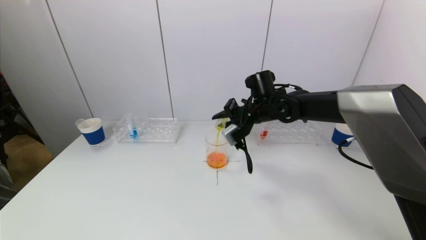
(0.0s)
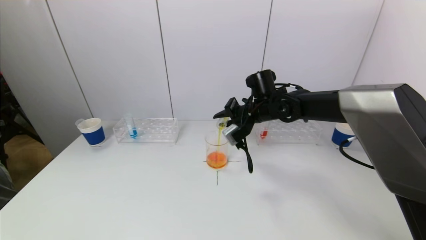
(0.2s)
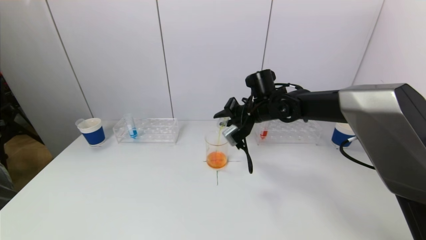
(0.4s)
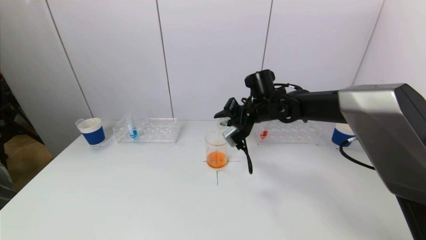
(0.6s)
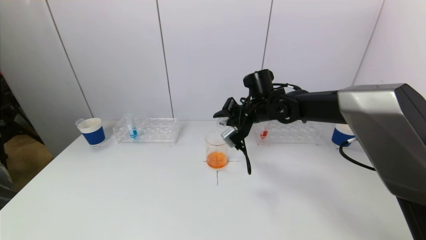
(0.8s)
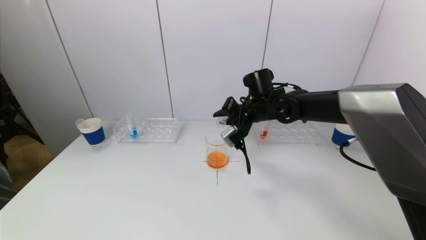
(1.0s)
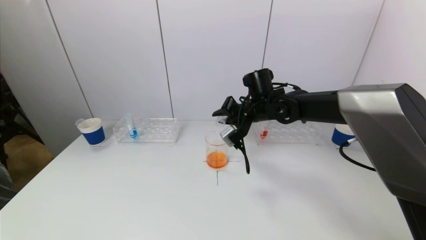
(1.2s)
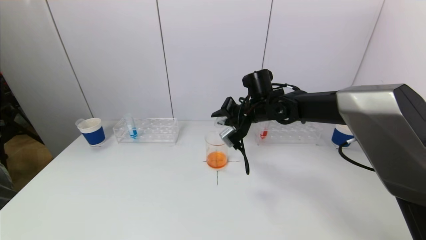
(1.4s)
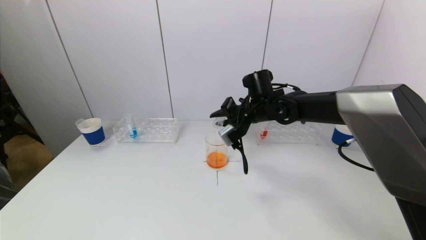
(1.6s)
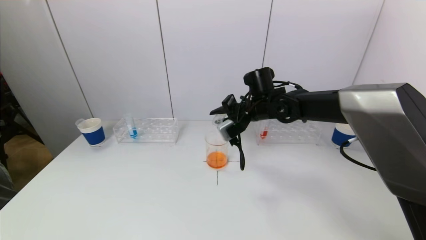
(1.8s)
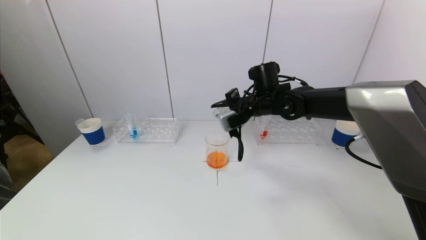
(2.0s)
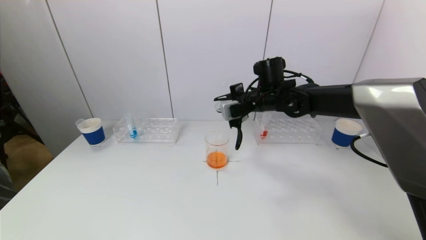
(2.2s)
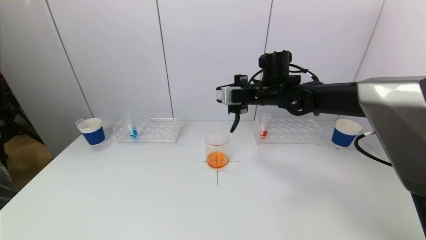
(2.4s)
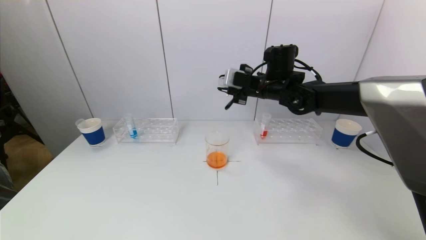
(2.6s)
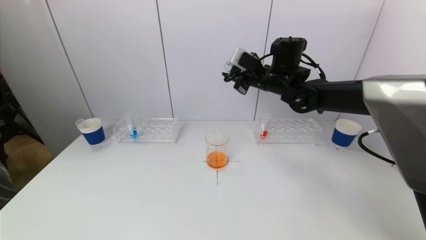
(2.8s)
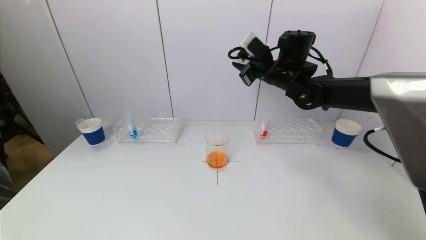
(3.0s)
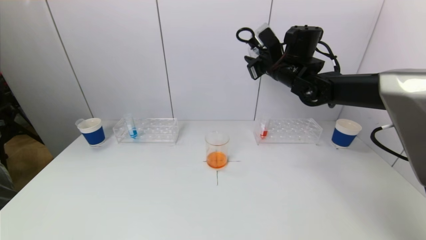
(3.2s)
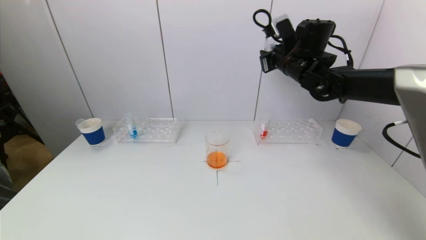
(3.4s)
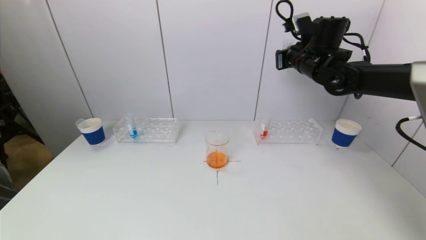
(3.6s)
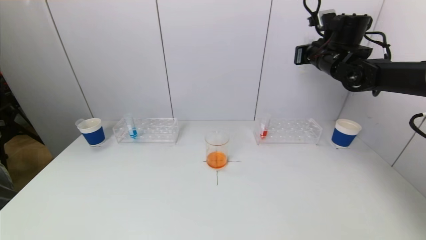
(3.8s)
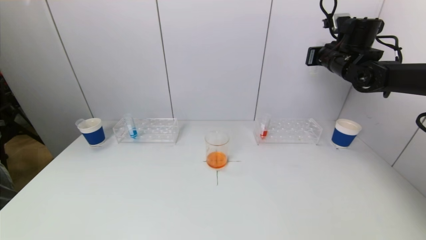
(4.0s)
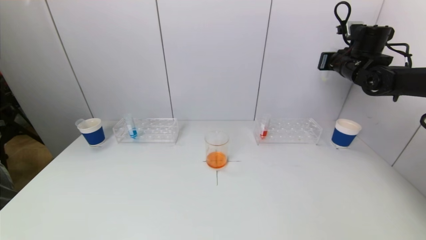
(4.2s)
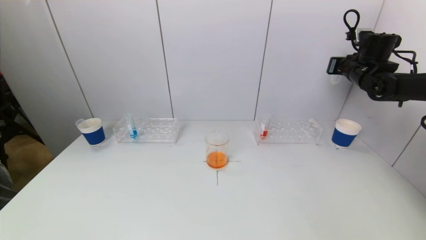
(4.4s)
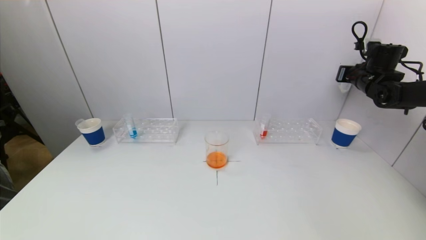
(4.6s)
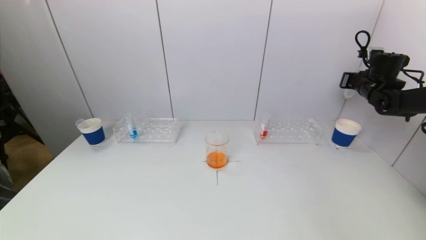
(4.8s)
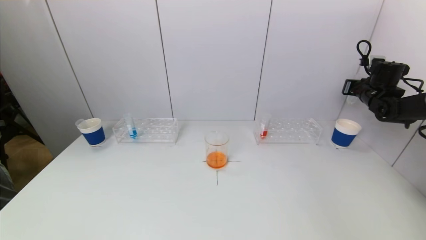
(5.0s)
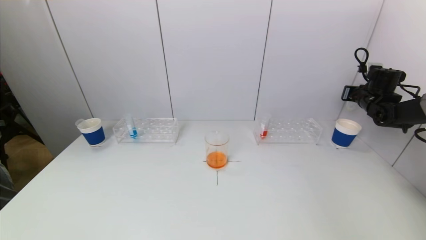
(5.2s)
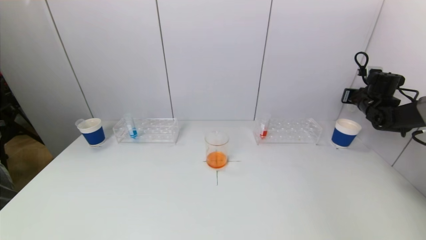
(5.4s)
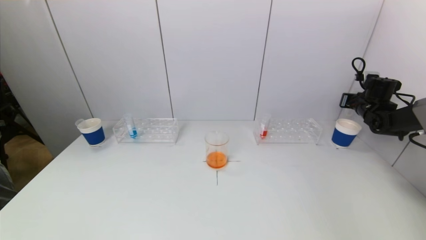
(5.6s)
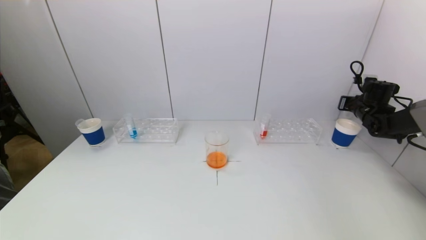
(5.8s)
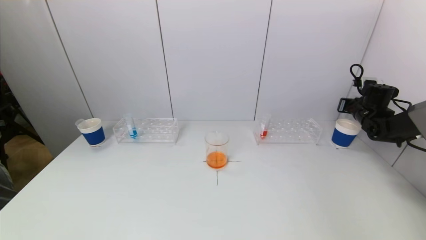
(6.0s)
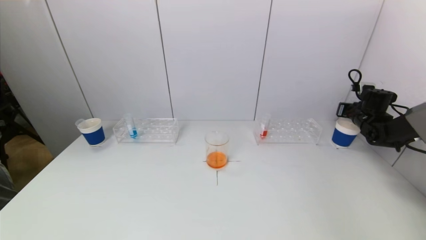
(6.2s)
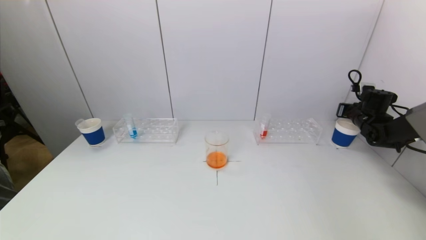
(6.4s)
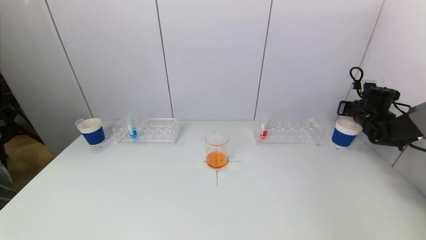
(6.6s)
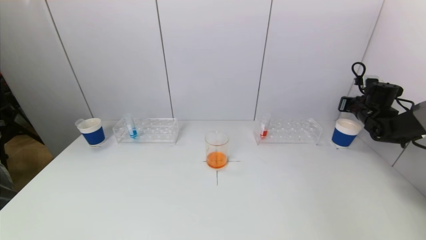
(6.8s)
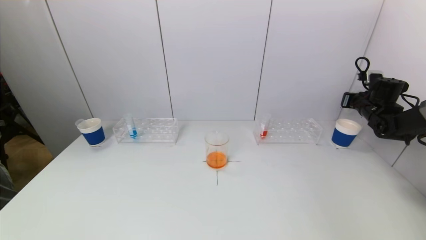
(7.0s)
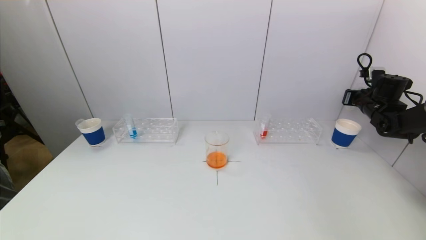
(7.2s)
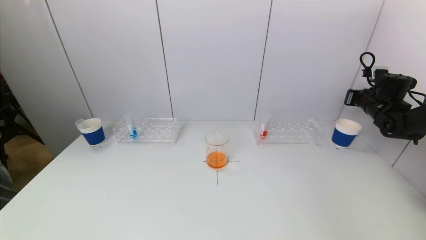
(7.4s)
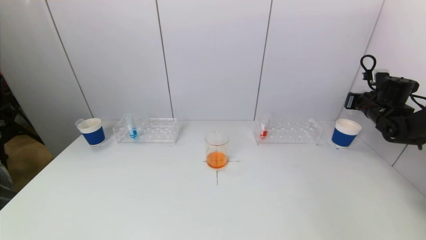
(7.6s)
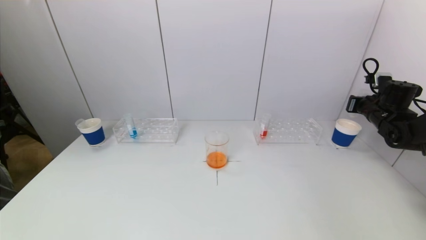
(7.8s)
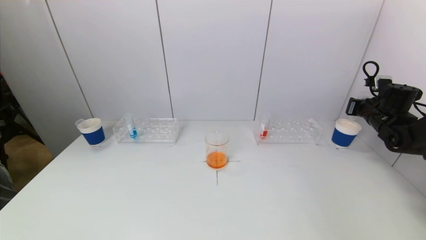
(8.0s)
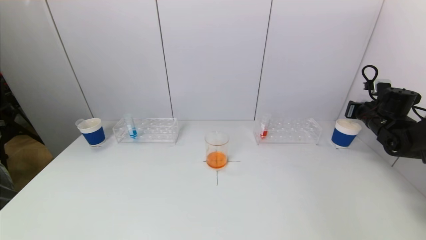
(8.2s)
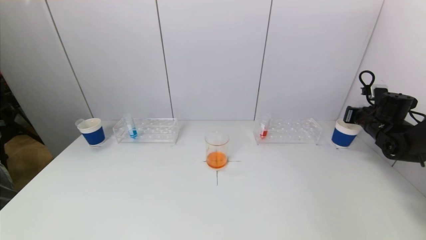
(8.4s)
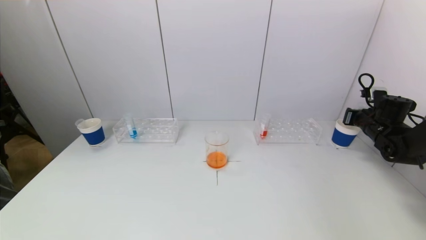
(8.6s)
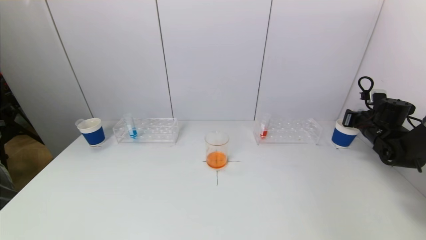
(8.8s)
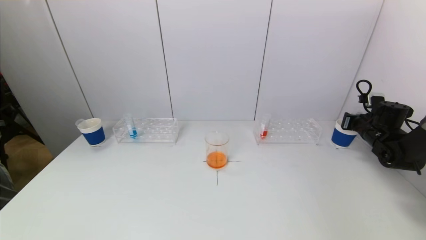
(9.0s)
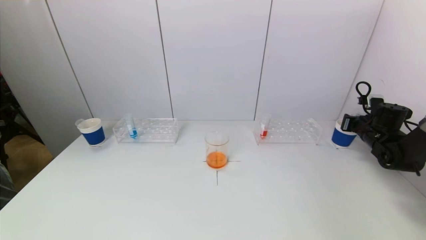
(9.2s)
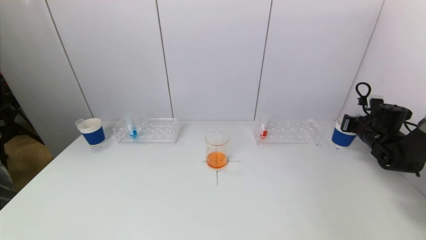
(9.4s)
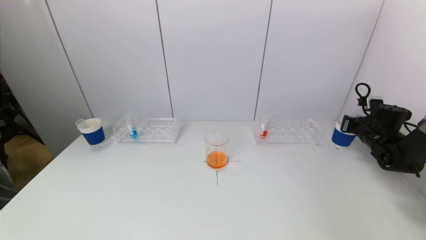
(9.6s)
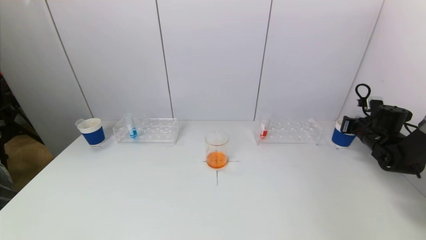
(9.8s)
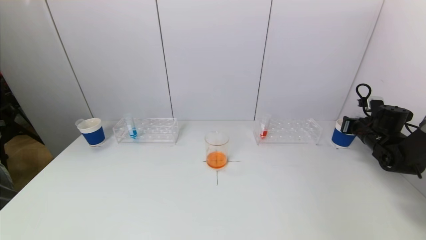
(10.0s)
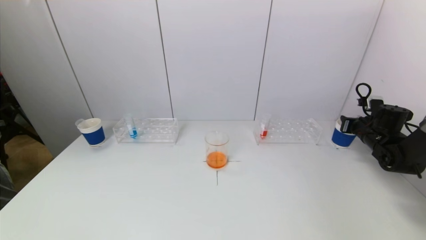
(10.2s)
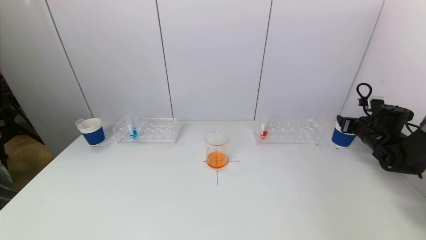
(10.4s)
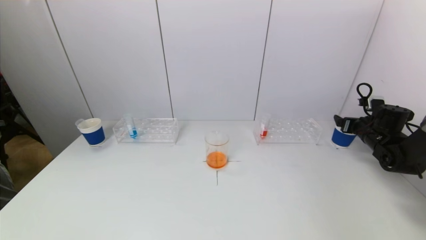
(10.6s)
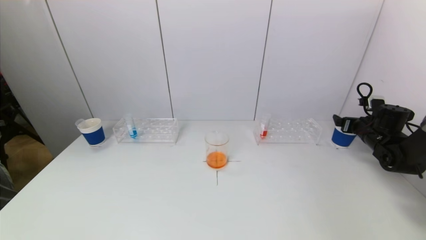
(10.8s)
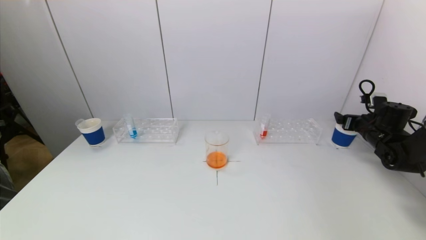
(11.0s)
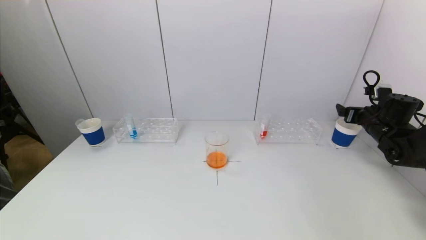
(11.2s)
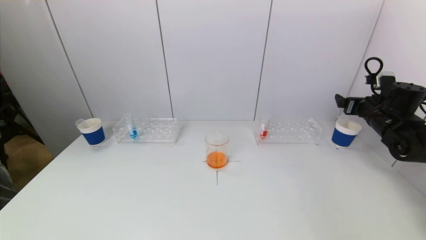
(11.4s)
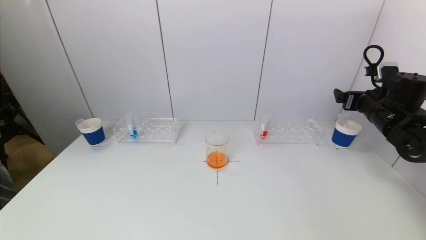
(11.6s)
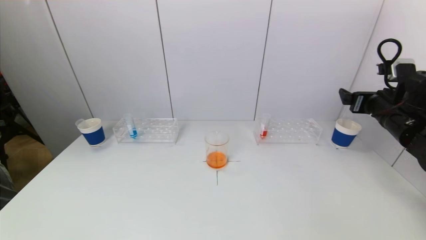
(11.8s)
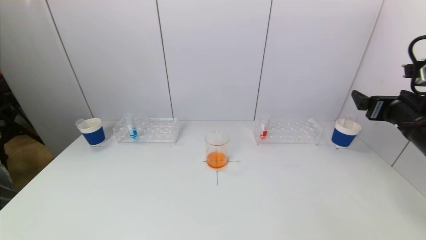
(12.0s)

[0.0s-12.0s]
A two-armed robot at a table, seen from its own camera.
Task of the whole recording: pick up a test tube with pigment on left test tube rack and a test tube with pigment on right test tube rack by grippers and pour them into the beaker.
Step, 1.6s to 10.4s: Place the test tube into the paper cup with the right gripper.
0.0s to 1.6s: The grippers stay close to where they were, moving slightly.
1.6s to 3.0s: The right gripper is displaced upward by approximately 10 cm.
3.0s to 4.4s: The right gripper travels to the right by about 25 cm.
4.4s to 6.0s: The right gripper goes roughly 15 cm downward and to the right.
6.0s to 7.6s: The right gripper moves about 5 cm.
7.6s to 9.0s: The right gripper travels downward by approximately 5 cm.
9.0s to 10.4s: The right gripper opens.
10.4s to 12.0s: The right gripper shifts approximately 20 cm backward, upward and to the left.

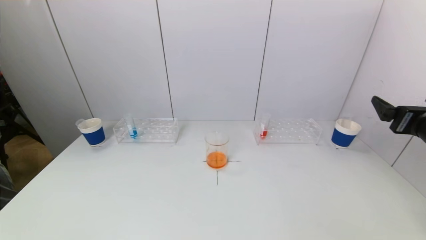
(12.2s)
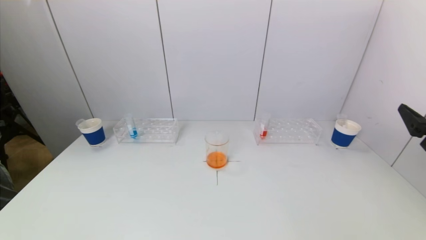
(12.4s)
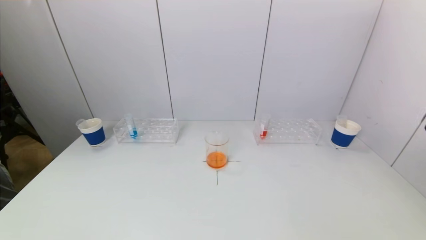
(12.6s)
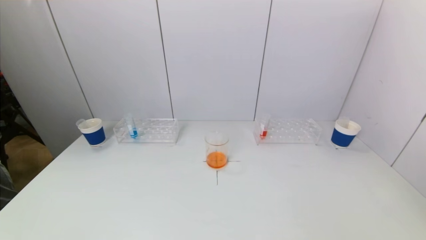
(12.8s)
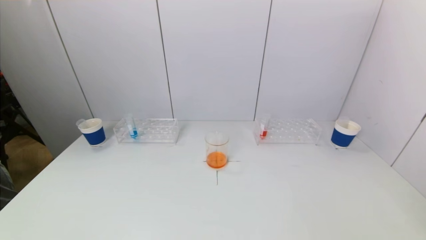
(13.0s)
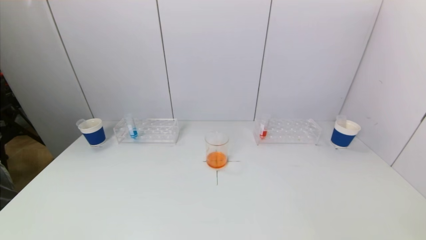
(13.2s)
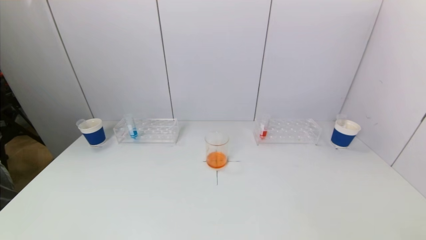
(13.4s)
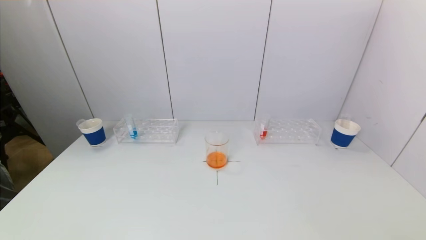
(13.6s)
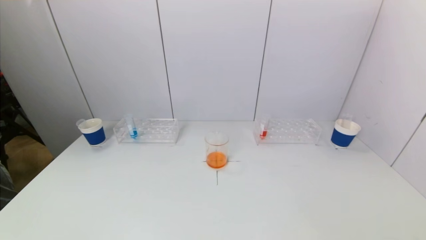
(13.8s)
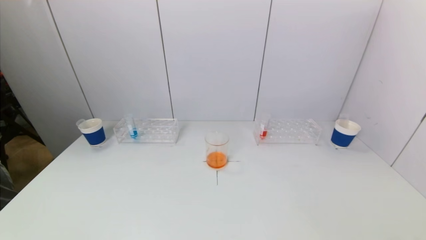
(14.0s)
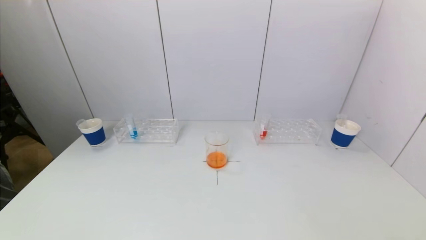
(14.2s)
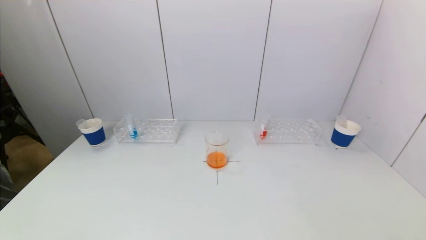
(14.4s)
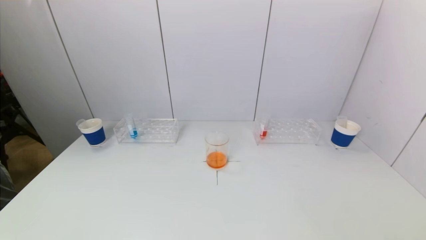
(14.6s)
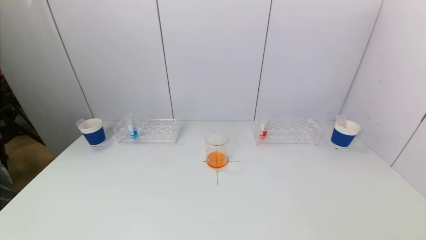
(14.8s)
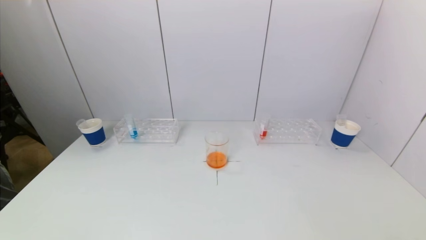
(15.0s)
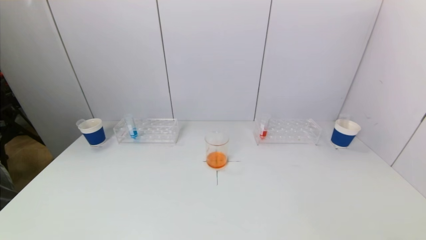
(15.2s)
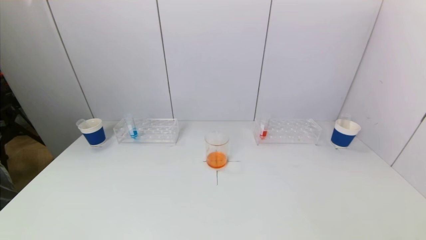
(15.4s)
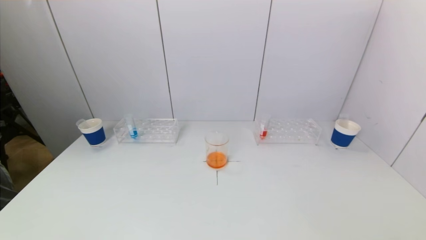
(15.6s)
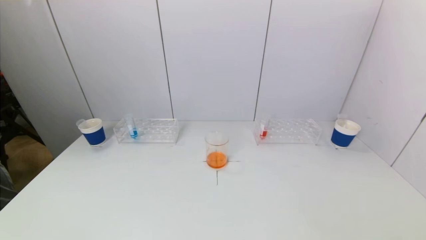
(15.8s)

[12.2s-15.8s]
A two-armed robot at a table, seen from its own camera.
Task of the whole recording: pick up a test tube with pigment on left test tube rack and a test tube with pigment on right test tube rack by grippers and pour them into the beaker.
12.2s to 14.0s: The right gripper moves backward and downward, roughly 25 cm.
14.0s to 15.8s: Neither gripper changes place.

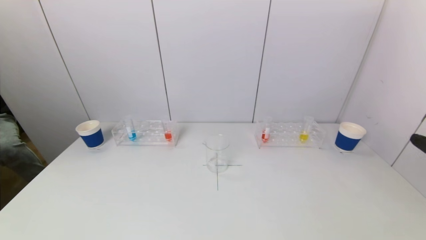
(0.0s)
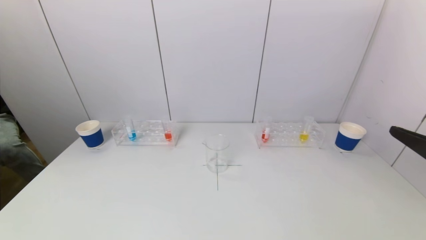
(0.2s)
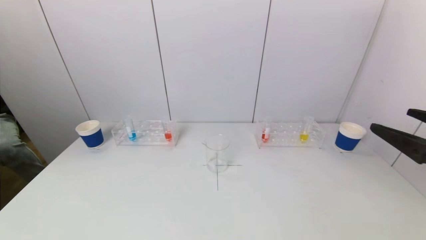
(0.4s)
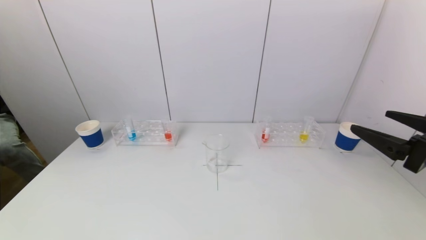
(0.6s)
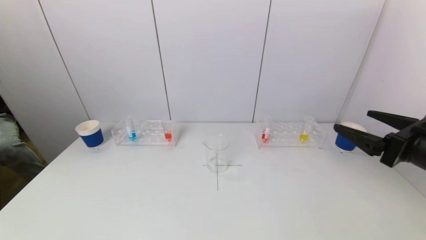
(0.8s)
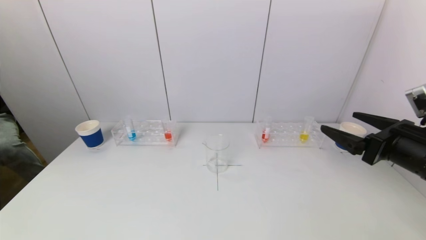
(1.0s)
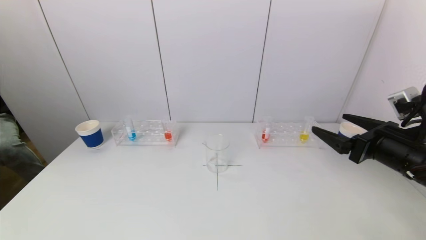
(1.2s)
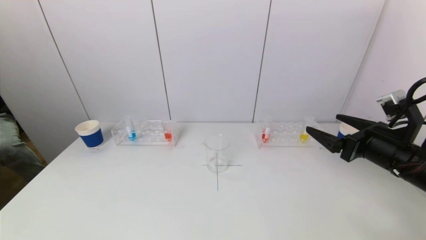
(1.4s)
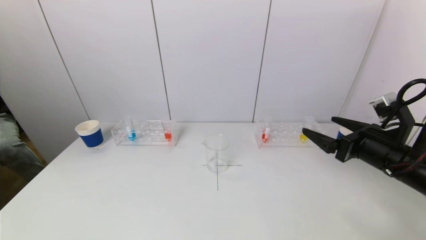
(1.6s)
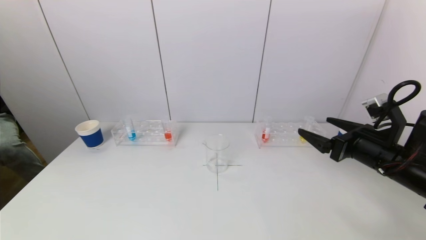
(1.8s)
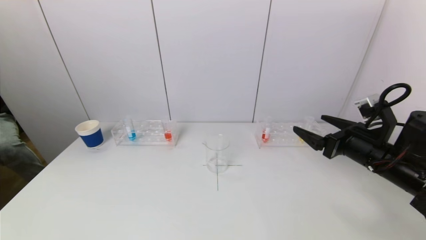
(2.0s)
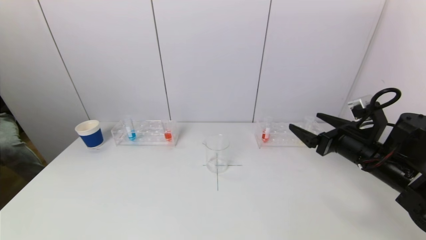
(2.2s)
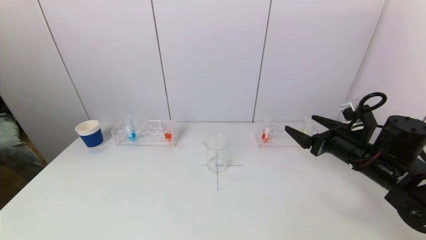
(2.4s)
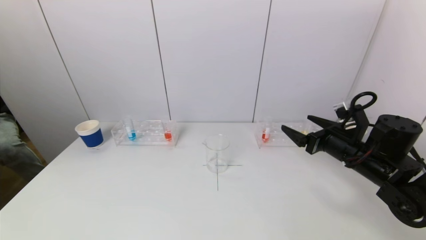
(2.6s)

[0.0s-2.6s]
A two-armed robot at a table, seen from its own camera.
Task of the whole recording: pick up a test tube with pigment on left test tube rack and a test tube with pigment on right test tube rack by grippers and pour them into the beaker.
0.0s to 1.2s: The right gripper travels forward and downward by roughly 15 cm.
1.2s to 2.6s: The right gripper moves forward and downward, approximately 10 cm.
